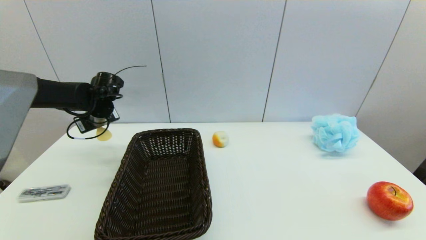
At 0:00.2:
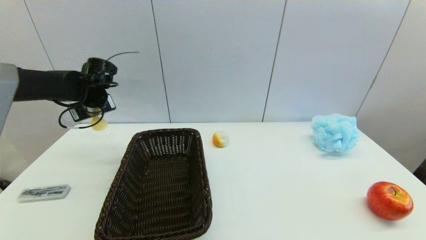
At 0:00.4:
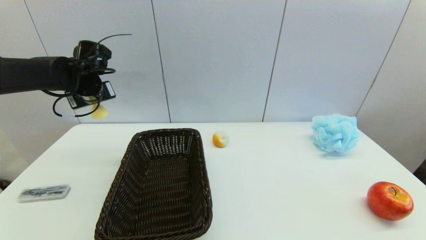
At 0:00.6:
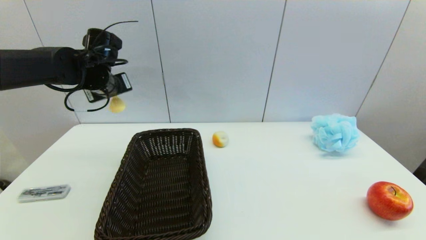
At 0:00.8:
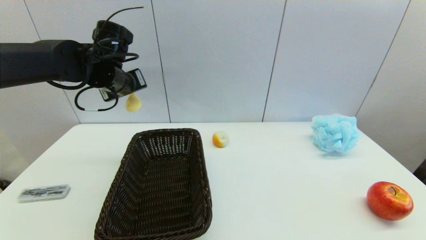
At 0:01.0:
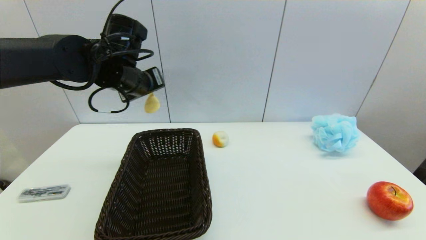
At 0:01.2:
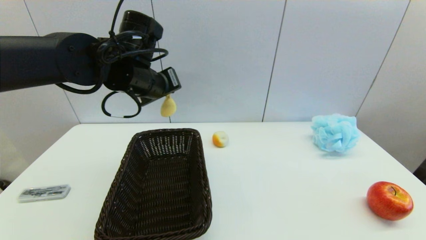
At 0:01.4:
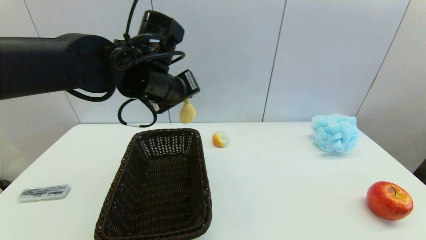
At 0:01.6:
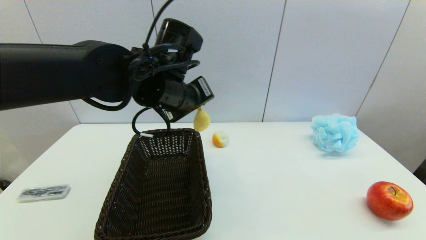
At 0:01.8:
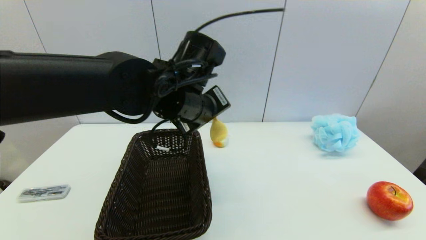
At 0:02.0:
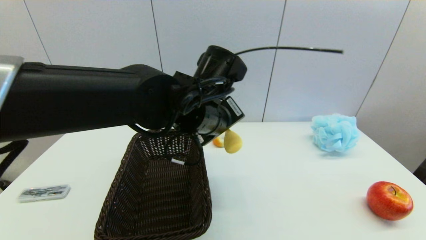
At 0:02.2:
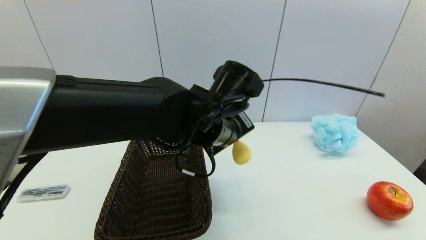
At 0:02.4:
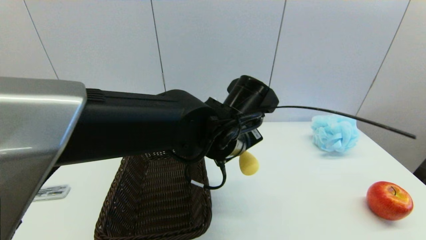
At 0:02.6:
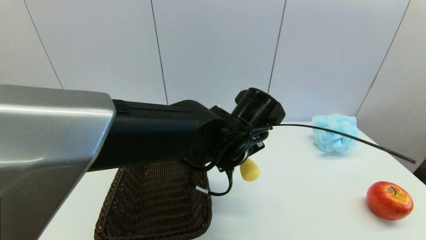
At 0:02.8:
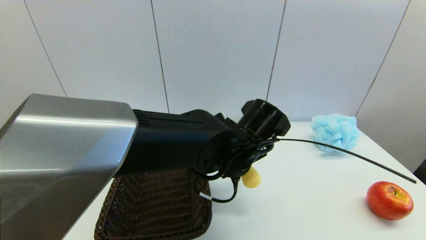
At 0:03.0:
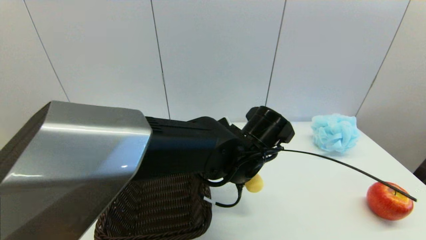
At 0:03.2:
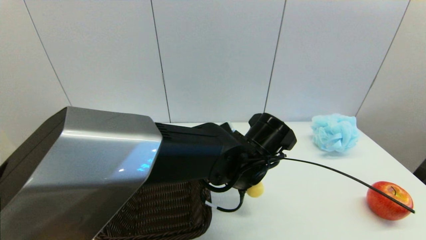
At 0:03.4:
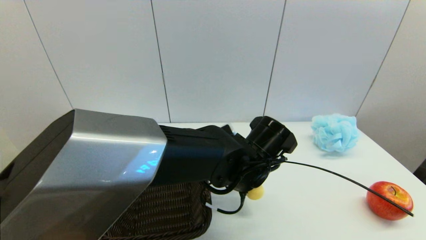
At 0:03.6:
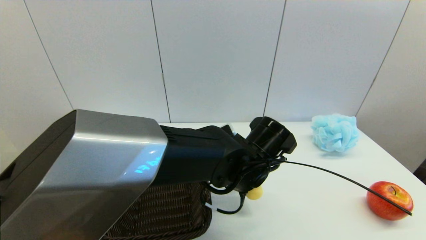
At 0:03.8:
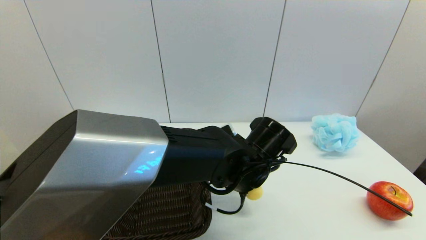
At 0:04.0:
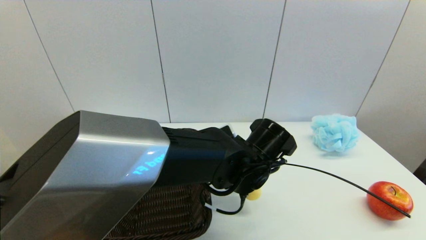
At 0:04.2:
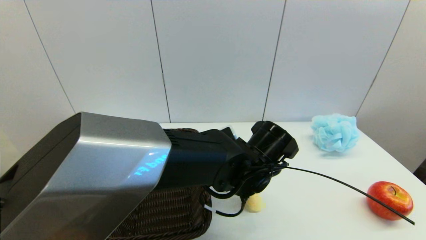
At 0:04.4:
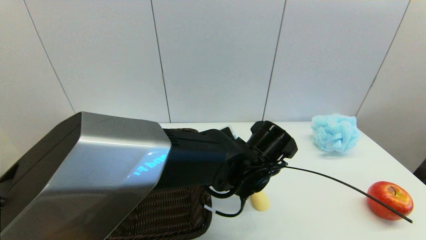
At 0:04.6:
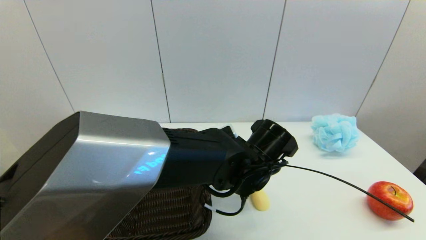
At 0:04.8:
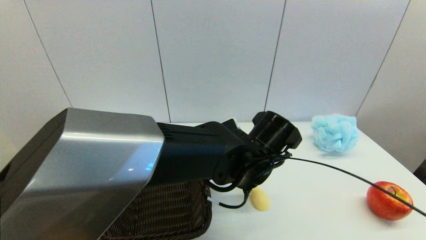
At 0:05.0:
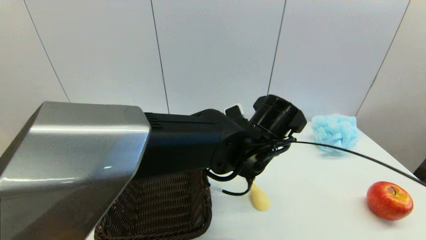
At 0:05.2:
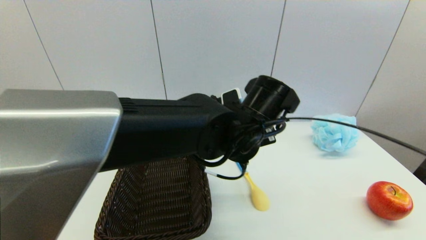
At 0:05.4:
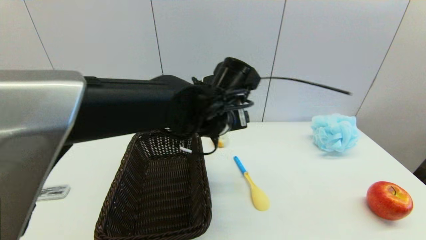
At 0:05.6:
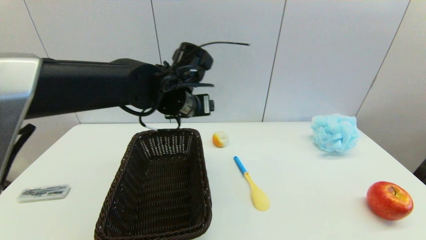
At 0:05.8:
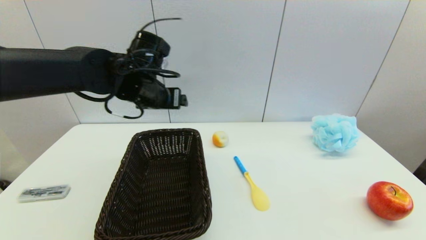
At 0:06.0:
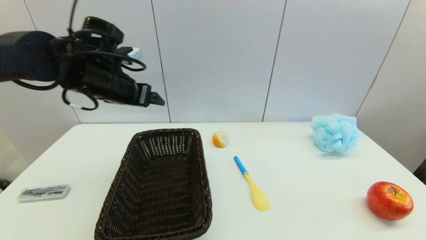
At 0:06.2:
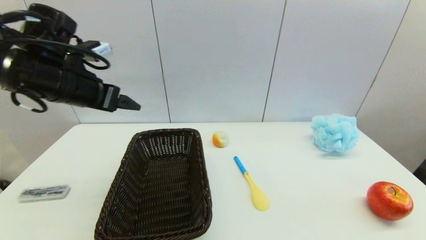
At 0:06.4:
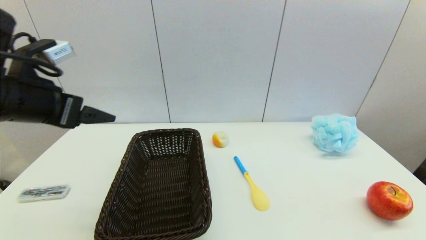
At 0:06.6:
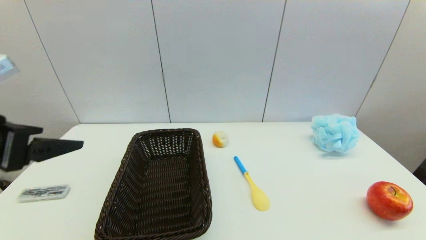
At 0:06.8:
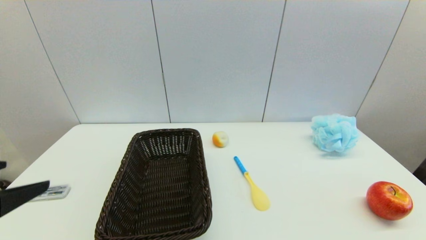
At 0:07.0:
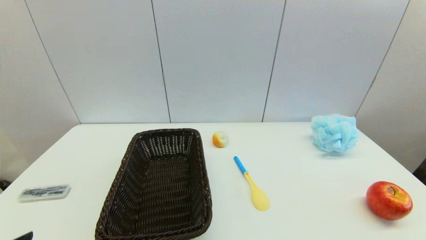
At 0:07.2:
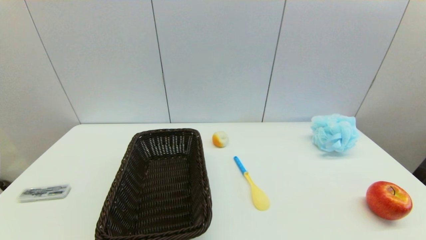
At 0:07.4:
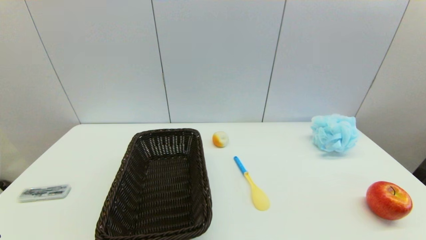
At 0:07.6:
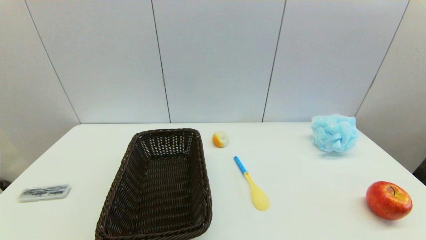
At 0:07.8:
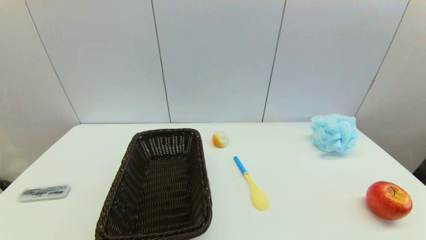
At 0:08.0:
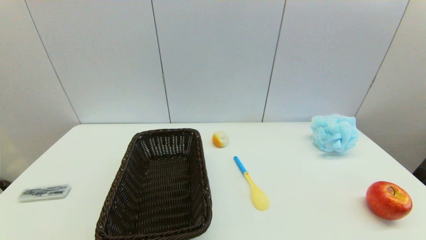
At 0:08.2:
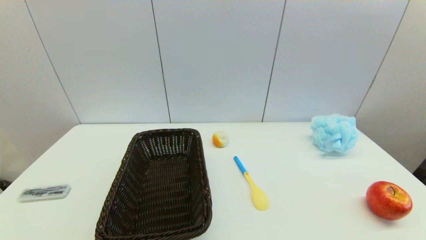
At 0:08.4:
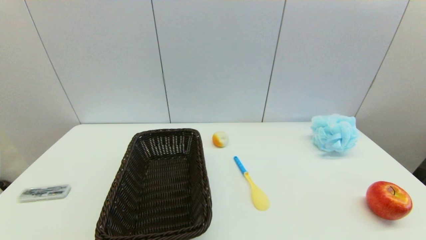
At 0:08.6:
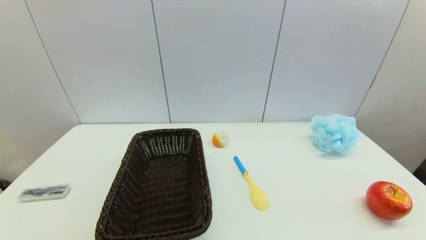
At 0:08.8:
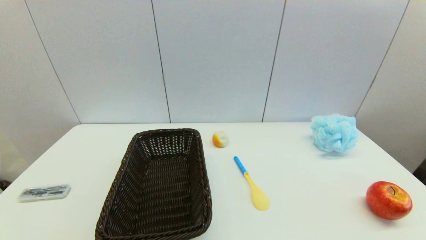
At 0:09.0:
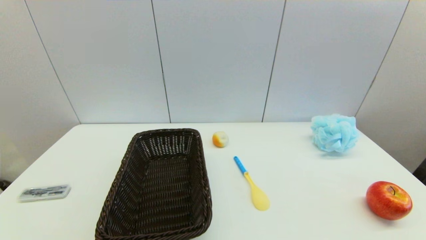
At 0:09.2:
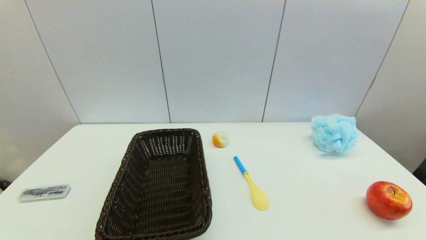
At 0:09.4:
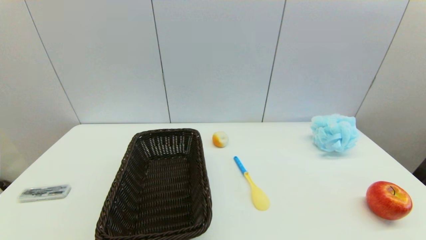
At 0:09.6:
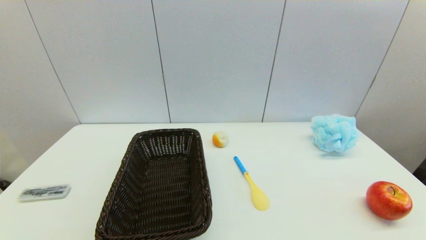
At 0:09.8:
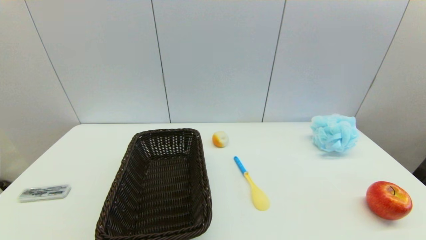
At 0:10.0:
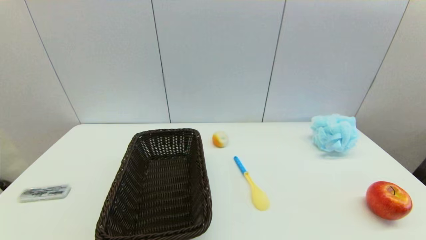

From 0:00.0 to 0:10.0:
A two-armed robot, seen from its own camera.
Step, from 0:00.0 to 0:04.2: Place the spoon on the table with left gripper.
From 0:00.0 to 0:01.4: The left gripper is displaced to the right, backward and upward by approximately 25 cm.
From 0:01.4 to 0:02.8: The left gripper travels to the right and downward by approximately 20 cm.
From 0:04.2 to 0:05.8: The left gripper shifts some 25 cm to the left, upward and forward, and opens up.
From 0:05.8 to 0:07.2: The left gripper is displaced backward and to the left by roughly 40 cm.
From 0:08.6 to 0:10.0: Neither gripper changes place.
